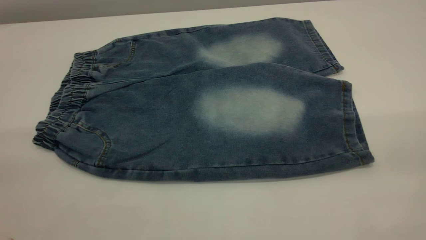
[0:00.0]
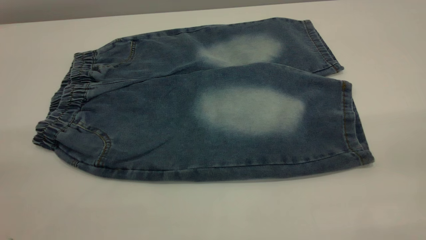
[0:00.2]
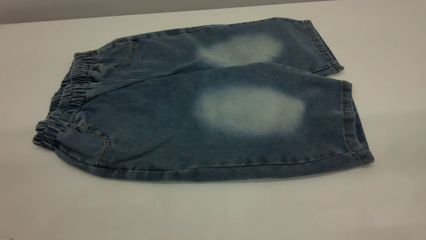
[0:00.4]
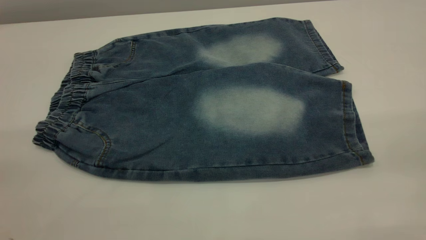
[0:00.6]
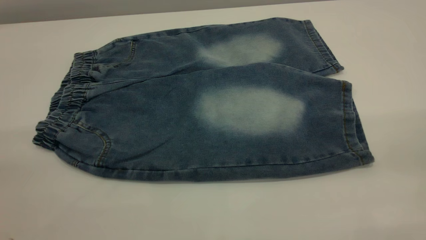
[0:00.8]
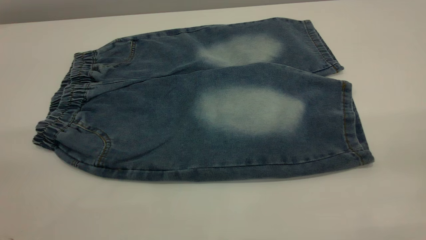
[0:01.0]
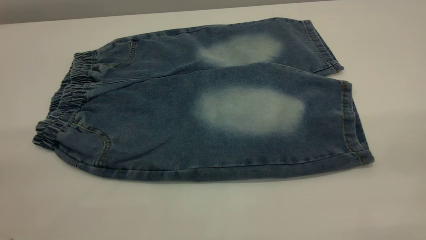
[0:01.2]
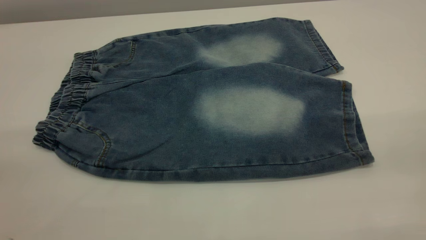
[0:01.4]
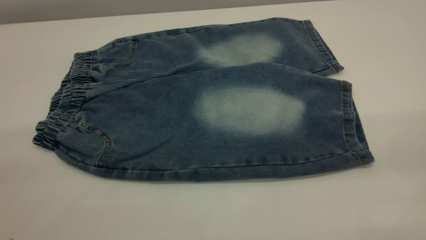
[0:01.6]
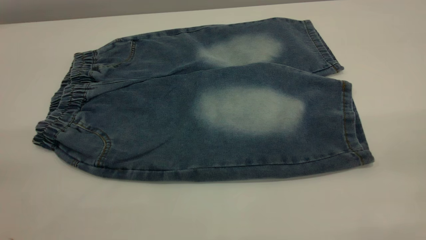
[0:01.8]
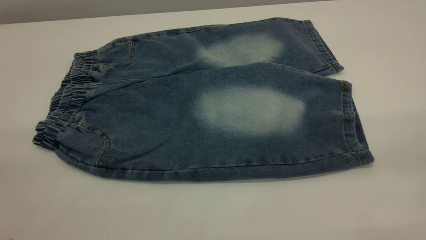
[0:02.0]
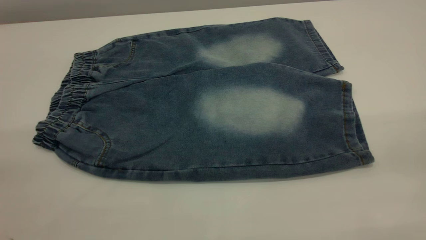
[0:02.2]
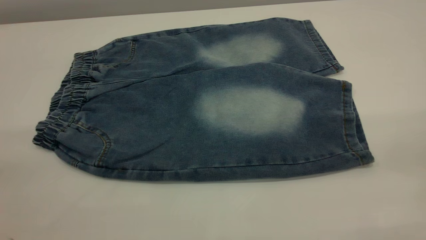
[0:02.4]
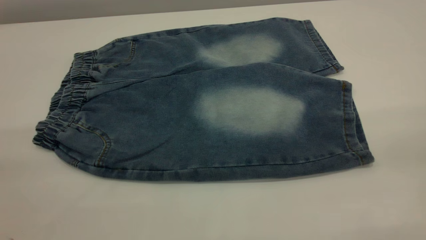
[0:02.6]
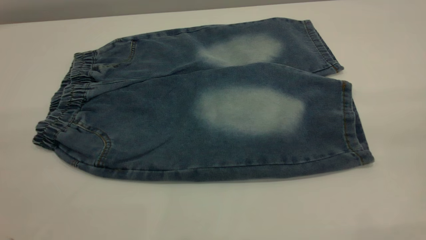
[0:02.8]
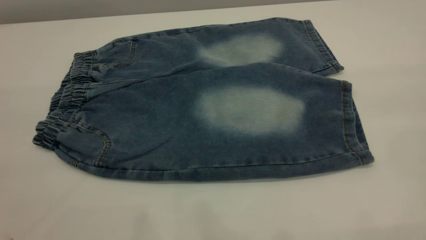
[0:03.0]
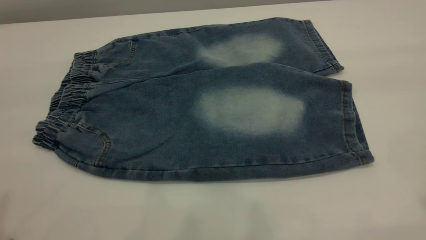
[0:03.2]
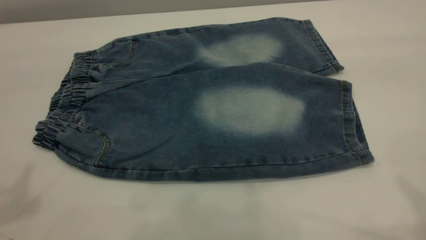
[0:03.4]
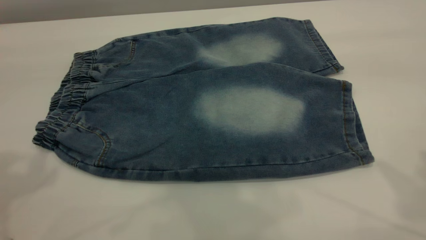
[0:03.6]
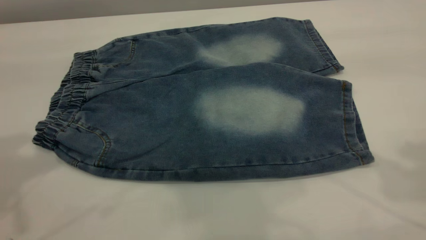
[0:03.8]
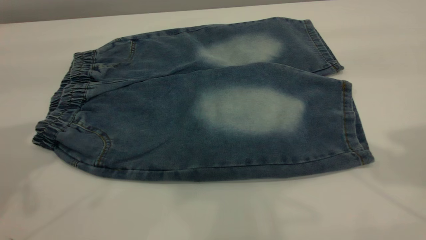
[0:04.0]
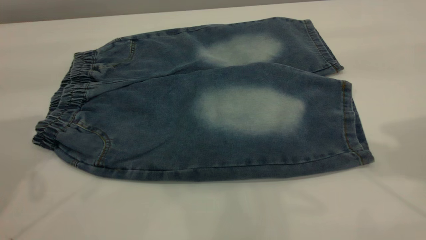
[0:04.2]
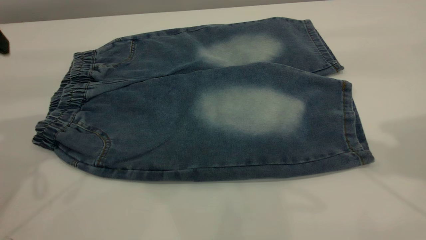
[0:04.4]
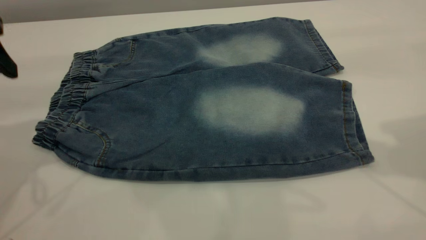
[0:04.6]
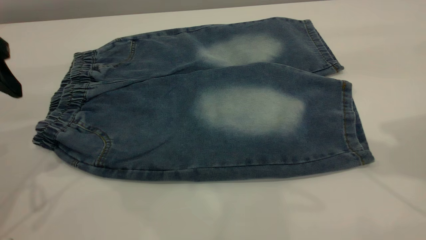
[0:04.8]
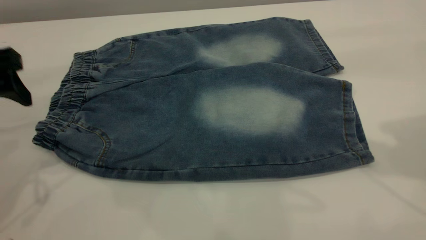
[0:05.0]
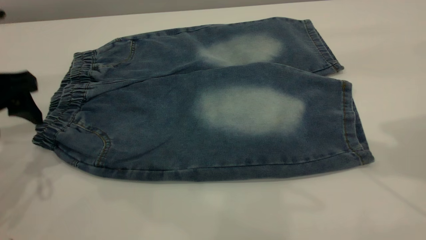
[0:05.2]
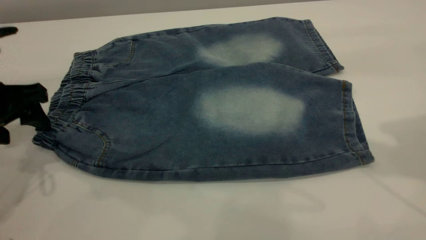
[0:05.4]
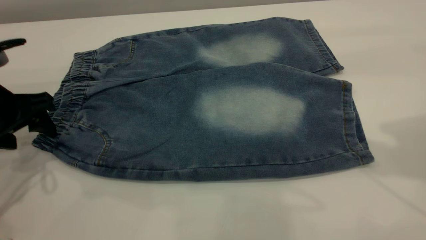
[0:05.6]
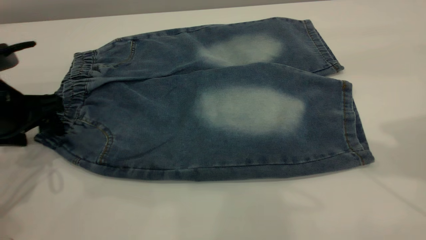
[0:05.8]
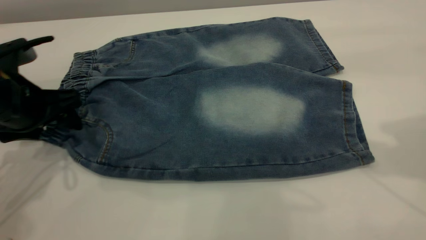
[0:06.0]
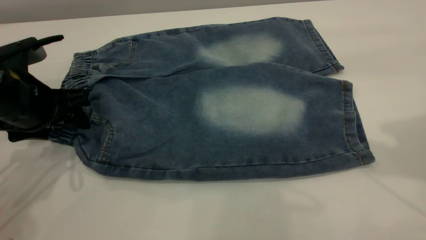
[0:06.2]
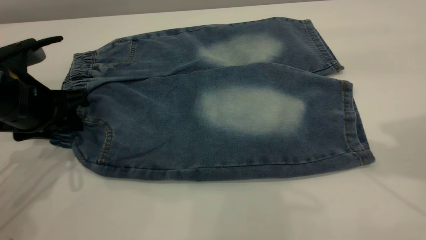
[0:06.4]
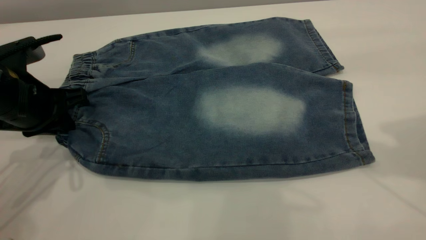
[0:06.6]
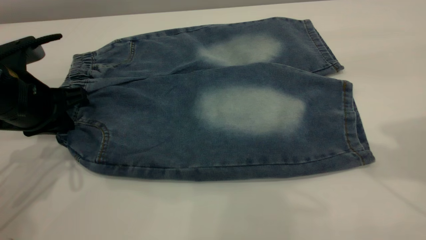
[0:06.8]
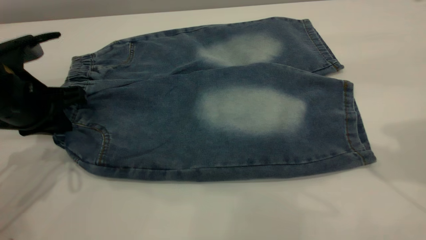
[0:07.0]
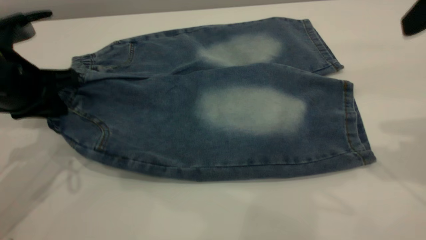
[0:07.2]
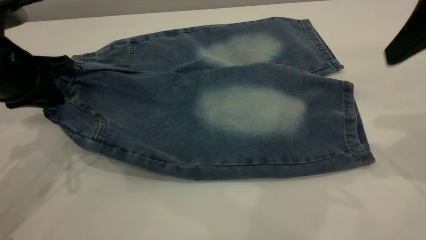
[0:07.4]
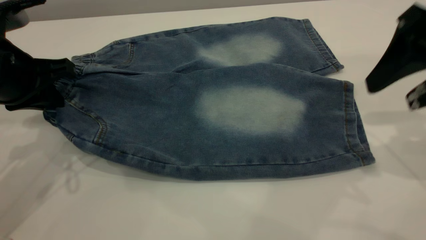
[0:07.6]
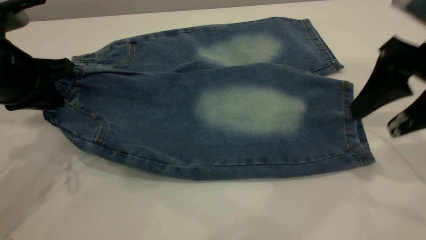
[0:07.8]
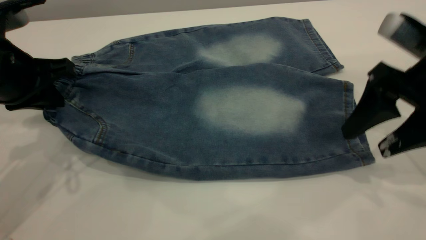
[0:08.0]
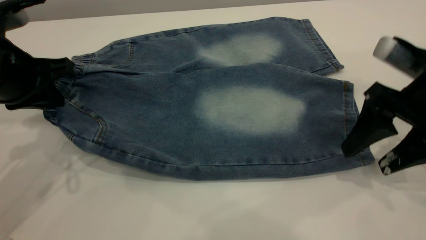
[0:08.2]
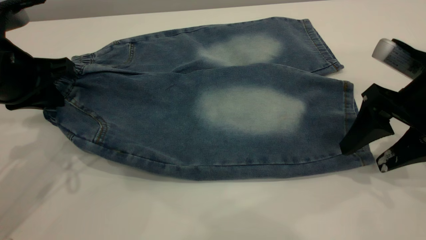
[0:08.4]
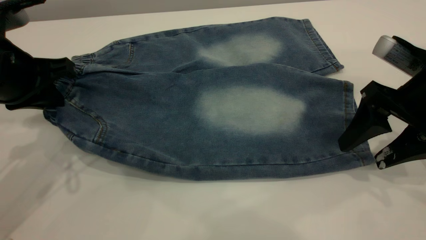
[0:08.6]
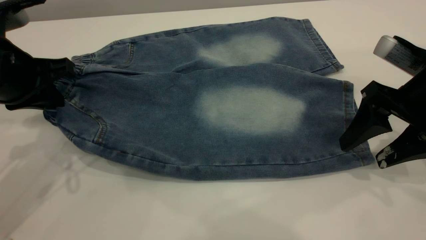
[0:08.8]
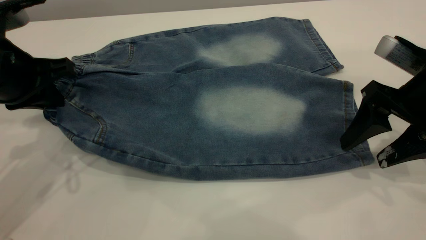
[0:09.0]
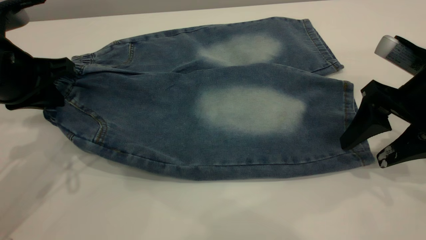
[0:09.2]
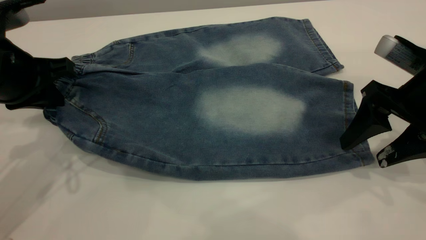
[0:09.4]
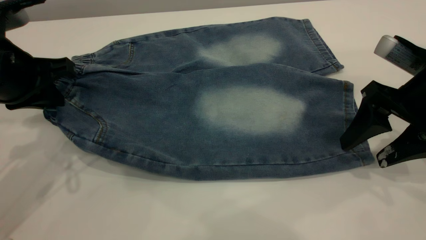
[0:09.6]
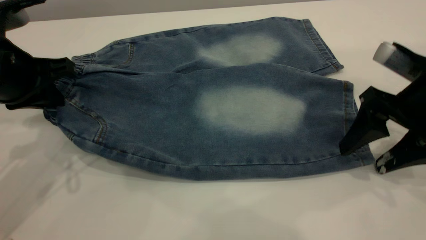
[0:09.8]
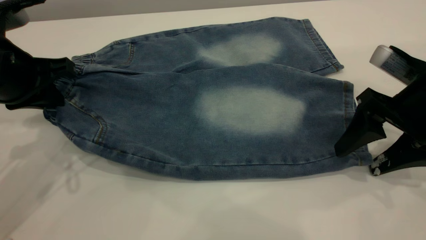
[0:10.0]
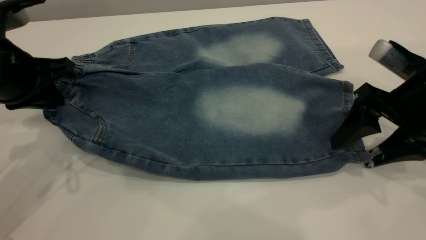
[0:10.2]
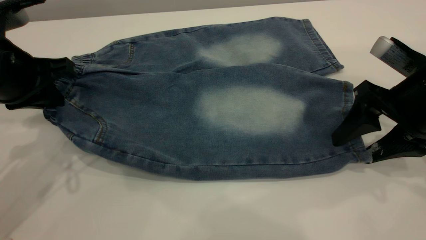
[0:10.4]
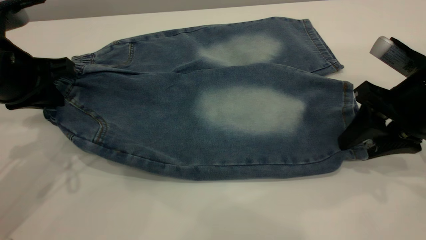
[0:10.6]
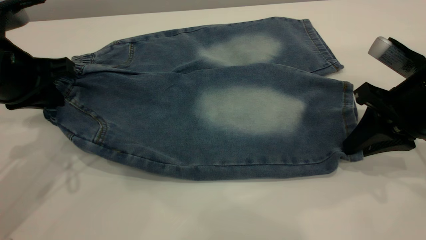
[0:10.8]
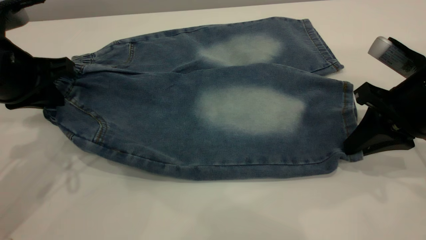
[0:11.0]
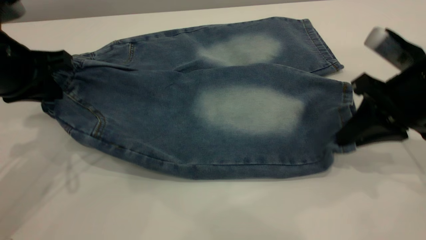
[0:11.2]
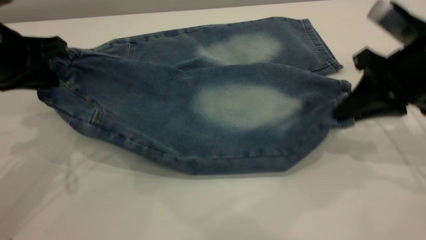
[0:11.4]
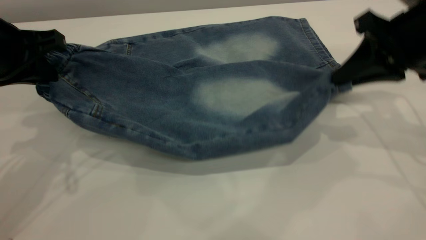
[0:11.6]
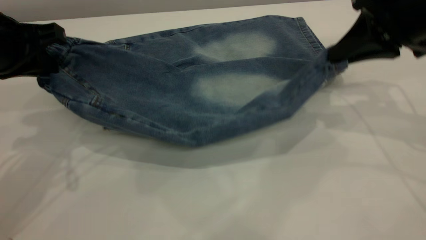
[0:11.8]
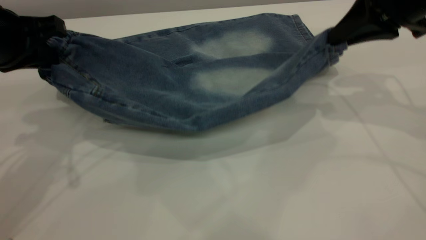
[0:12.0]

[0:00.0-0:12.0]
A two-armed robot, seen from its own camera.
0:00.0 to 0:01.6: Both grippers stay put.
0:04.4 to 0:06.0: The left gripper heads downward, covering roughly 15 cm.
0:06.0 to 0:07.6: The right gripper moves downward, roughly 15 cm. Meanwhile the left gripper changes place by about 5 cm, and closes.
0:07.6 to 0:09.0: The right gripper moves downward, roughly 10 cm.
0:09.0 to 0:10.4: The two grippers keep their place.
0:10.4 to 0:12.0: The right gripper travels upward and forward by some 15 cm, and closes up.

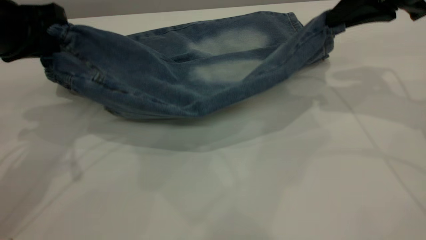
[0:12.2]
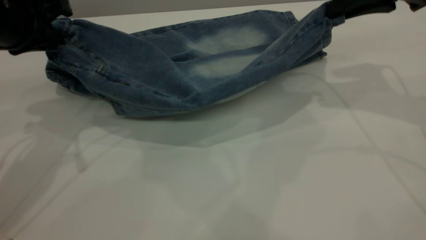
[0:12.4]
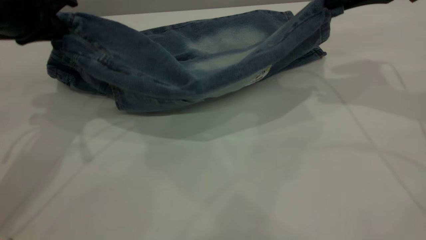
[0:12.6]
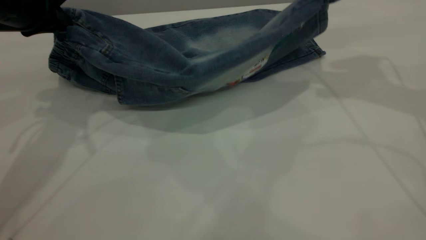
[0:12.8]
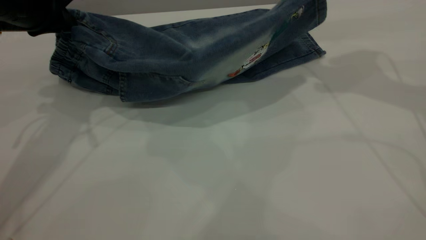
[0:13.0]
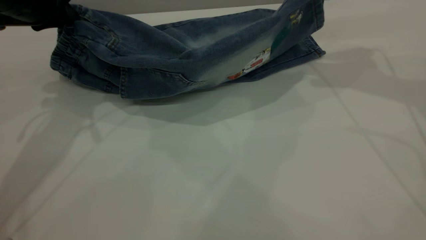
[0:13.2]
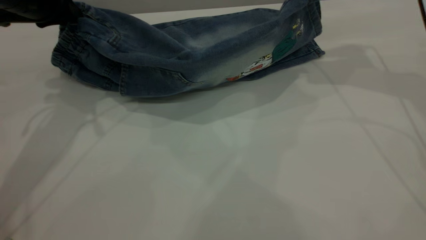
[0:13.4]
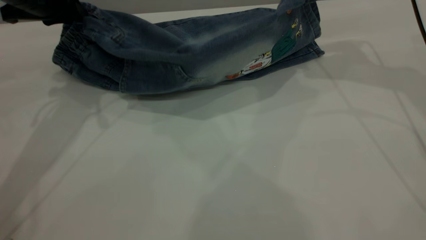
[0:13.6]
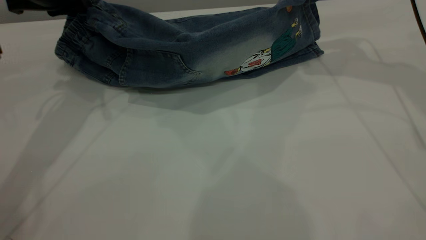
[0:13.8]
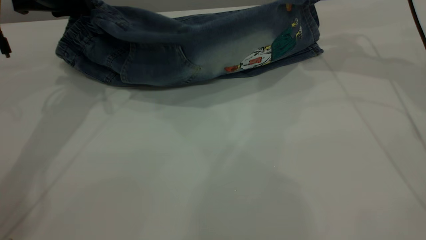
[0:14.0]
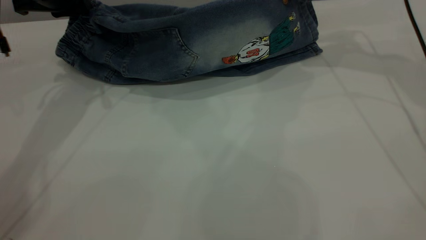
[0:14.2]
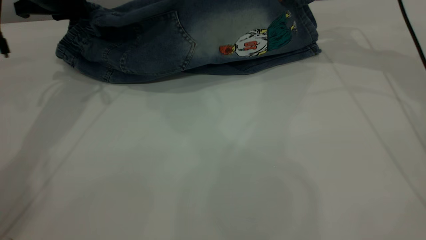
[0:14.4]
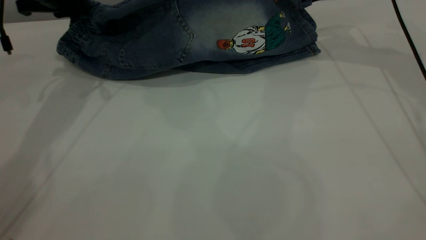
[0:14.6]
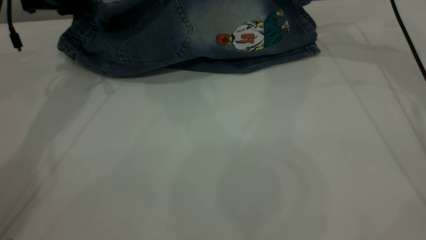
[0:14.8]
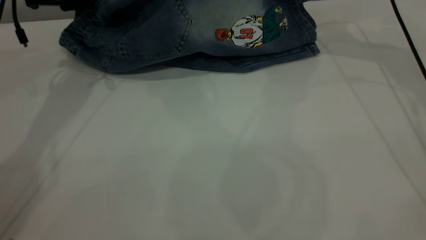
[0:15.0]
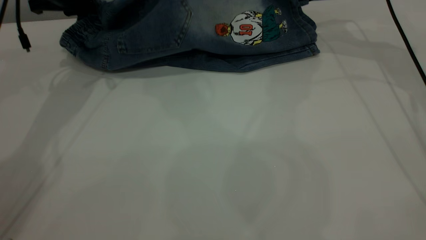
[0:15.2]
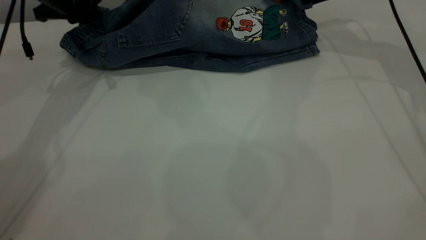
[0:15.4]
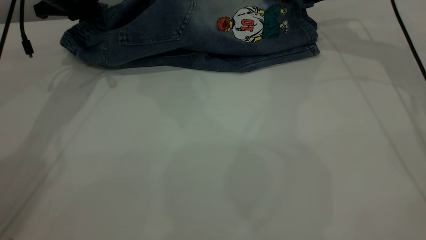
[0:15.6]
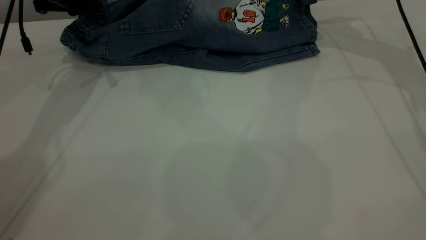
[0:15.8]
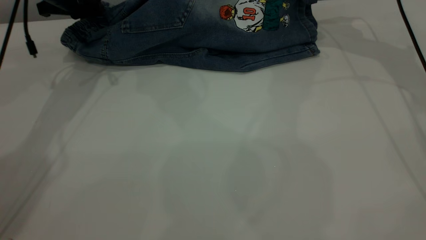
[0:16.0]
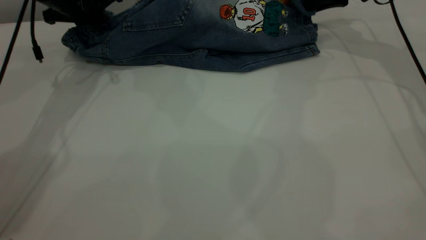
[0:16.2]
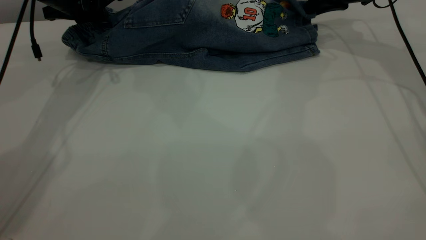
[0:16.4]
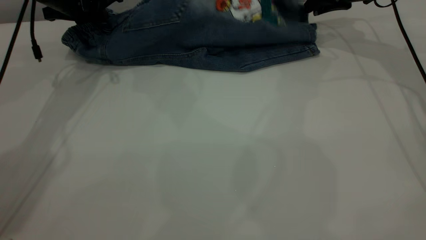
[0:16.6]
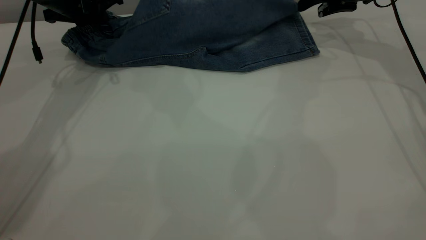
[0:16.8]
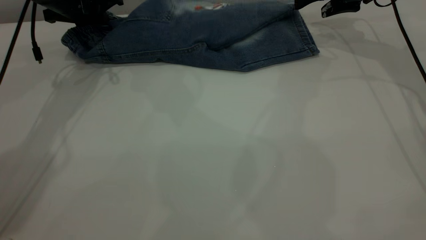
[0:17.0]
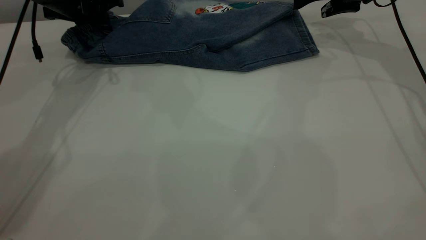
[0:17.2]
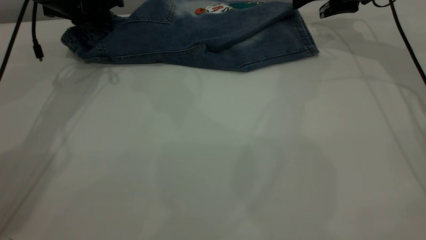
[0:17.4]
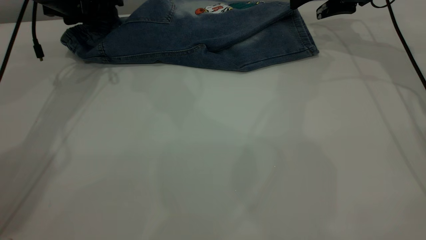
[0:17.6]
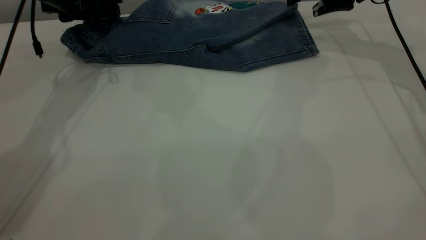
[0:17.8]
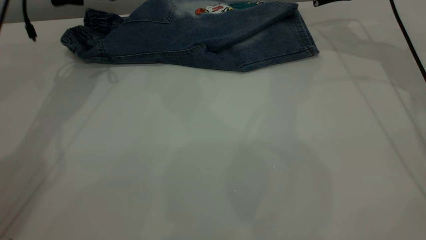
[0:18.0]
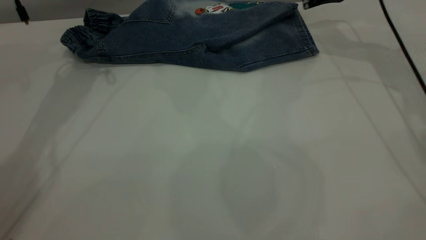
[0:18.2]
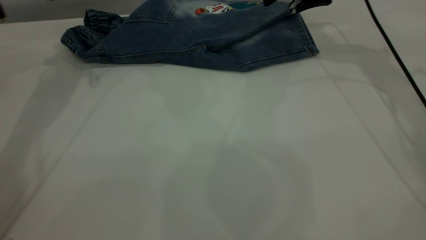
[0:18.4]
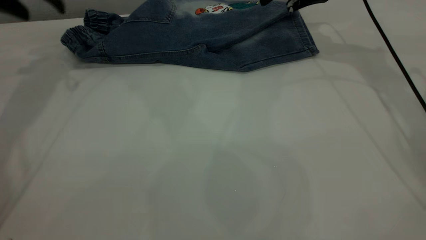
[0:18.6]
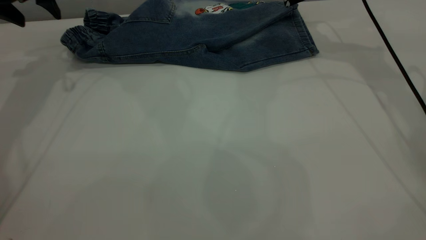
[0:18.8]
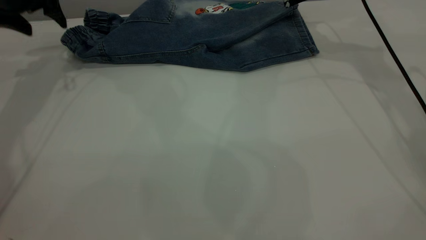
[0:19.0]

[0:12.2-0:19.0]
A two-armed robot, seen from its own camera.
Step, 0:12.2 to 0:18.0: Fold the bottom of the pants upward.
0:12.2 to 0:13.6: The two grippers go approximately 10 cm forward.
0:13.6 to 0:15.0: Both grippers travel together forward, about 10 cm.
0:15.0 to 0:16.2: The grippers make only small movements.
0:16.2 to 0:17.6: The right gripper opens up; the left gripper opens its fingers.
0:17.6 to 0:19.0: The two grippers go about 5 cm to the left.
